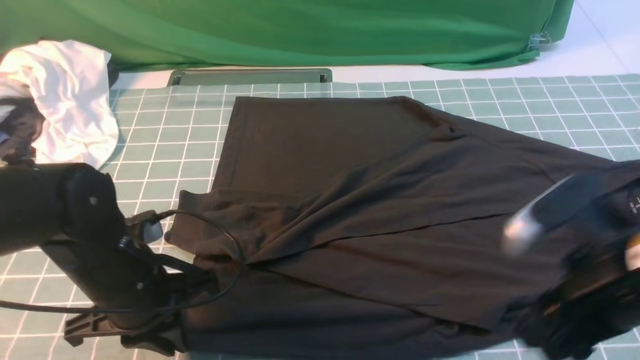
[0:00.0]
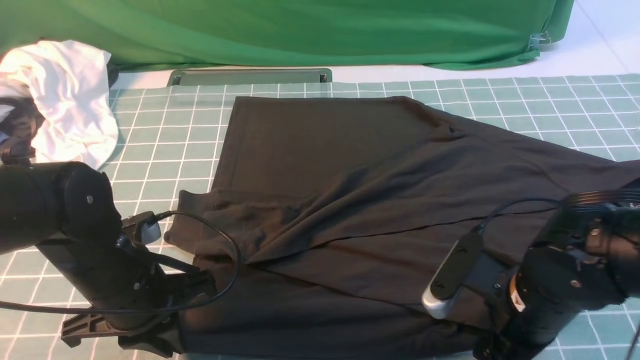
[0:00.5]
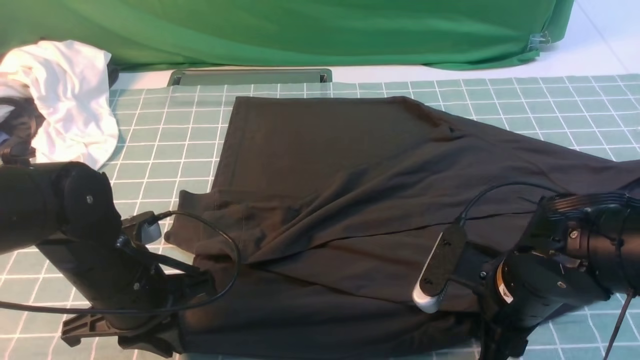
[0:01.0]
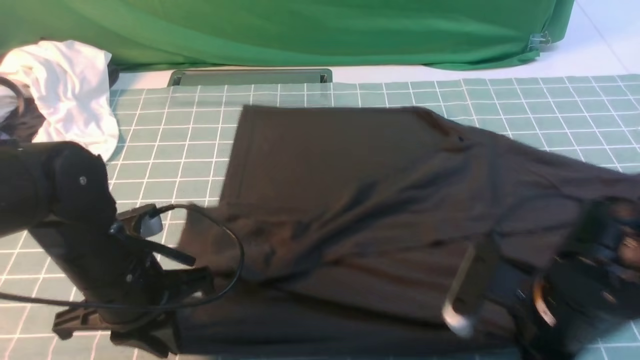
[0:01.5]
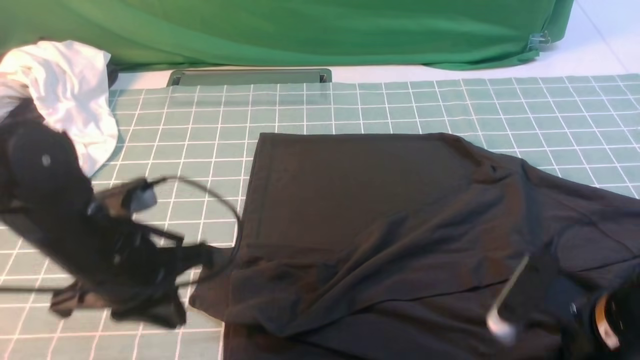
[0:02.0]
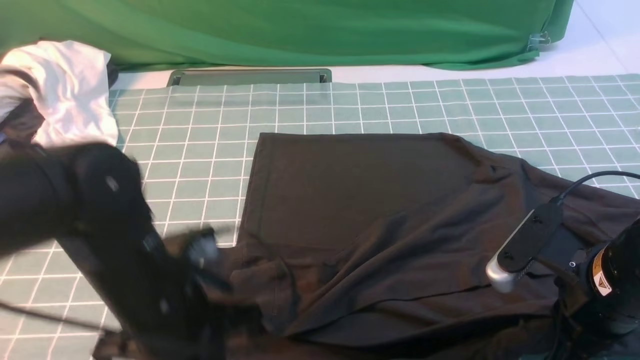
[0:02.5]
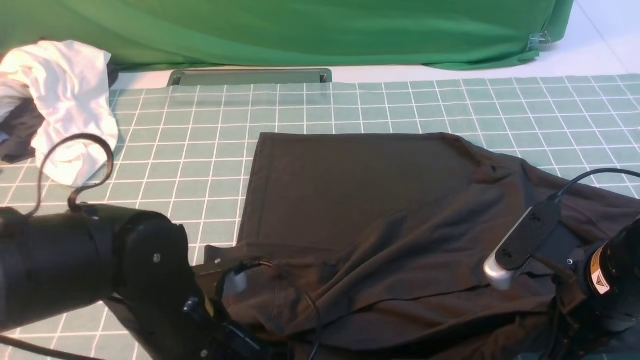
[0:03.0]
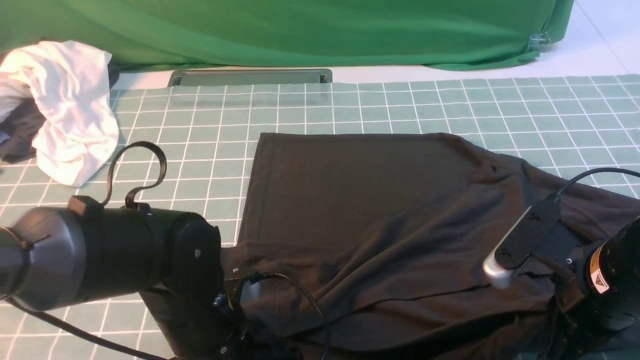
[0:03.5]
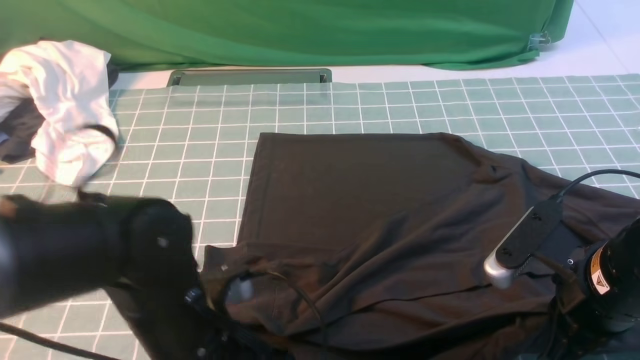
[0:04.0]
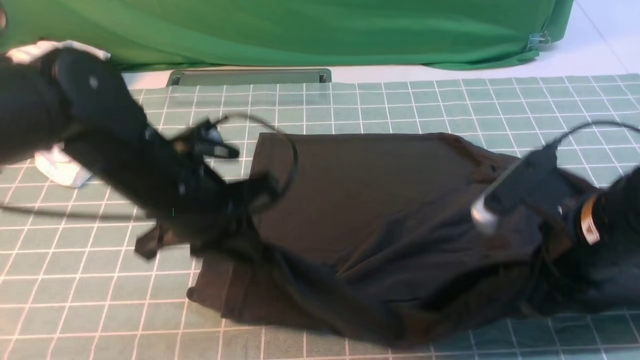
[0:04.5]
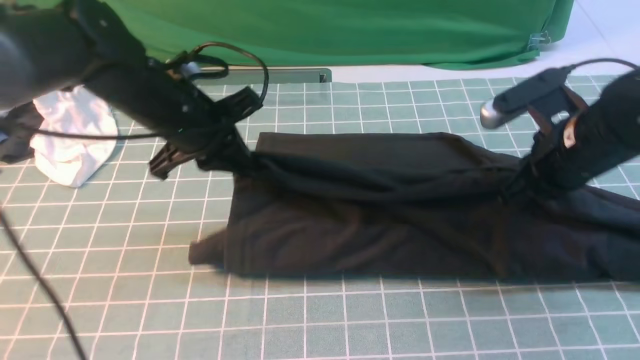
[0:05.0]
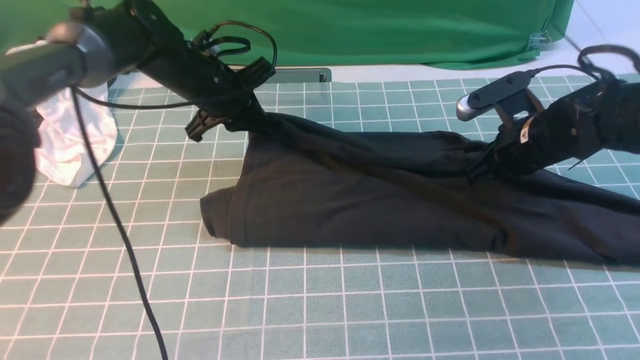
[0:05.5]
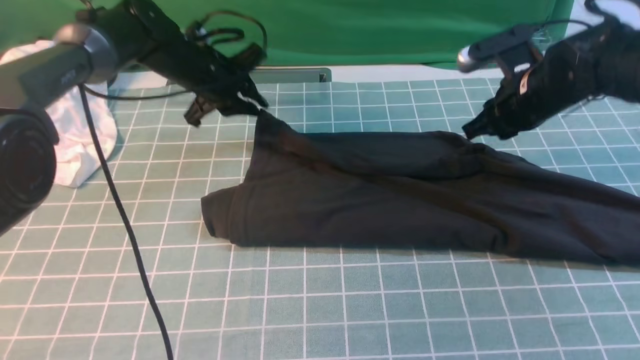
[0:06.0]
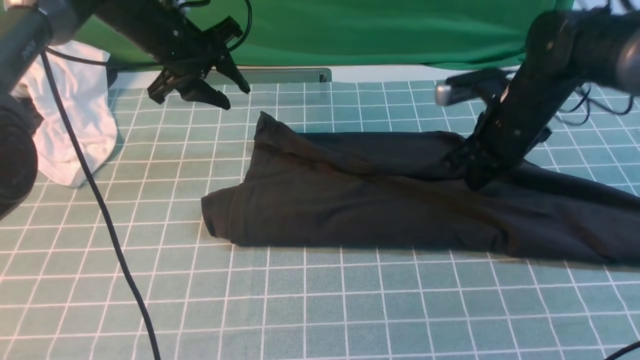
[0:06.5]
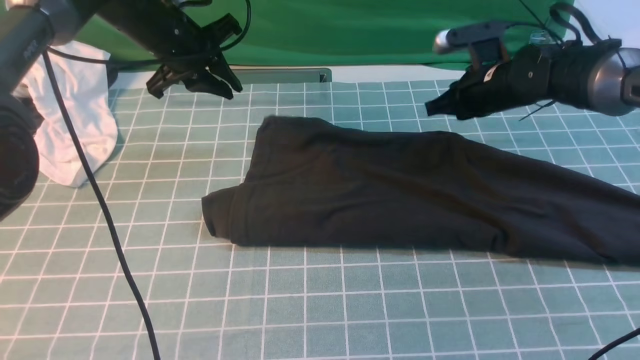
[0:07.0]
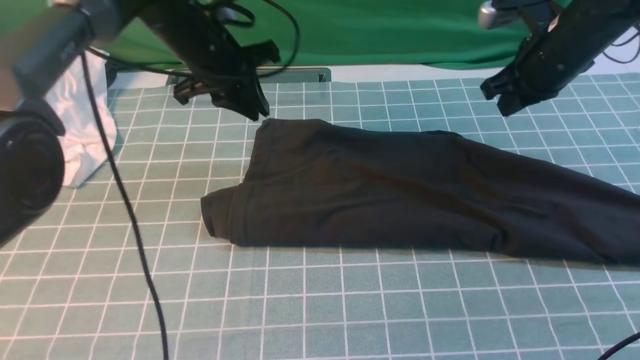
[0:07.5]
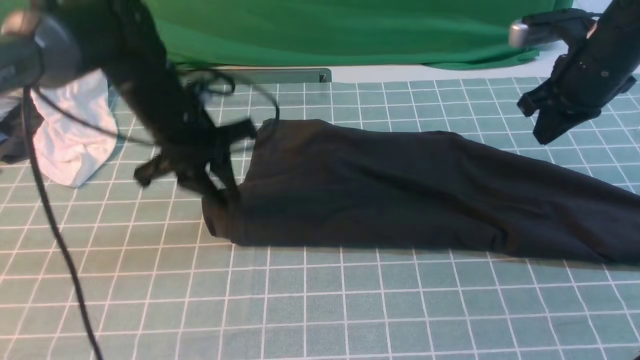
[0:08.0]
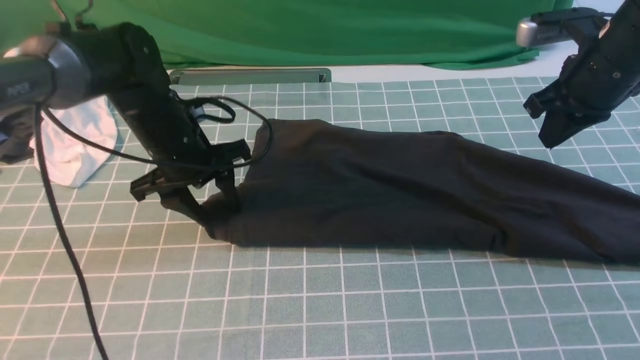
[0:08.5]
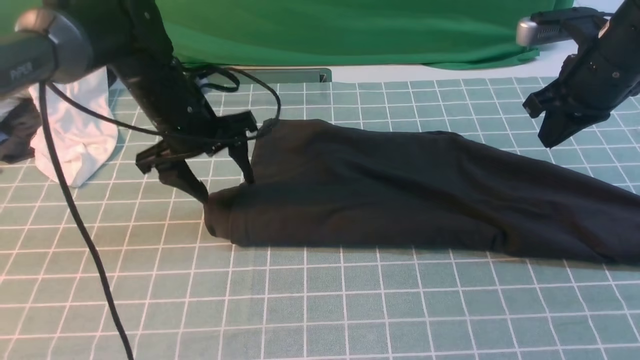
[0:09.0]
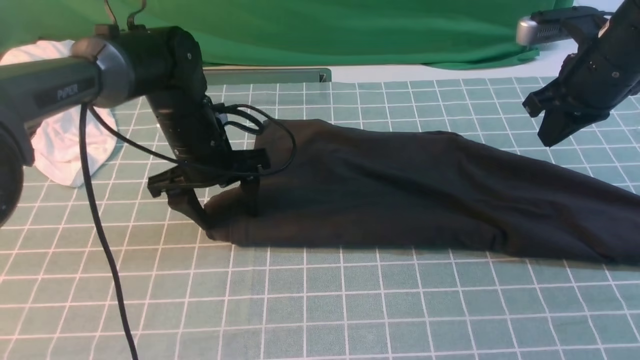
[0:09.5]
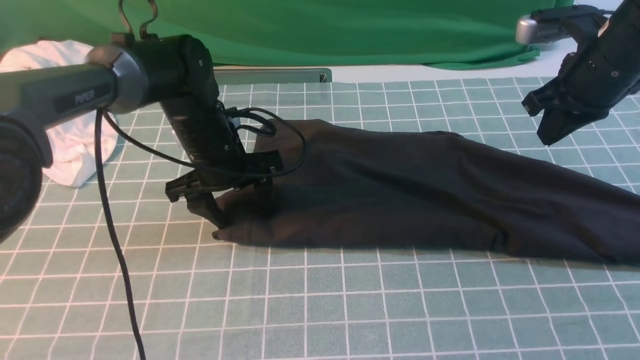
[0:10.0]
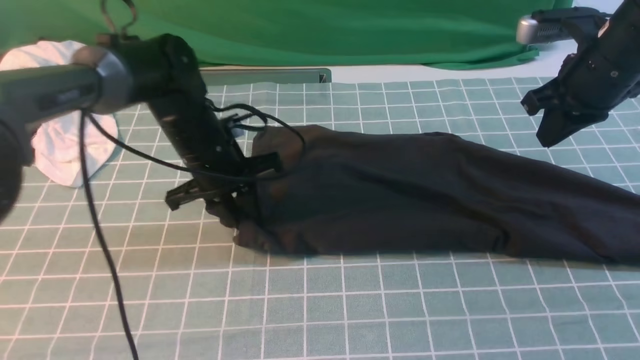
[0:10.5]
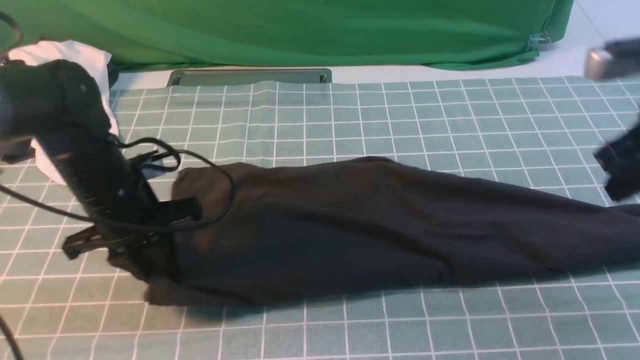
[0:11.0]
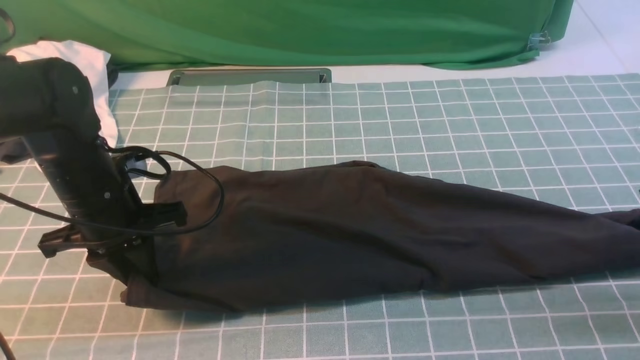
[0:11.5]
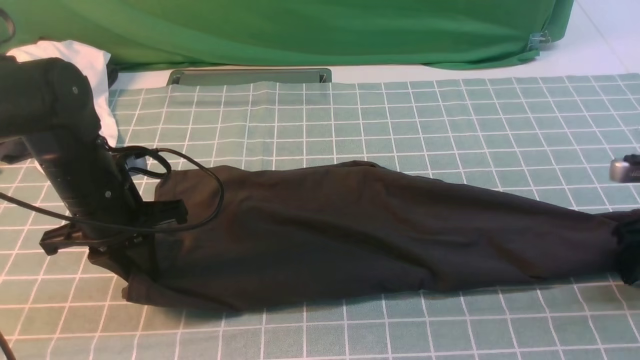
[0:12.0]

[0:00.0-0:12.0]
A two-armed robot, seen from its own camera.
Step, 0:00.0 to 0:04.0: use both arms simultaneously to clamp the lower edge of the clothing fabric.
Step, 0:04.5 to 0:07.0: use both arms to drag the lower edge of the fabric forward and fold it over the upper edge.
0:00.0 to 0:02.0: The right gripper closes up. Meanwhile the left gripper shifts about 5 cm upward.
0:02.0 to 0:04.0: The left gripper is displaced to the right by approximately 5 cm, and opens and closes again.
0:04.0 to 0:06.0: Both grippers move forward, about 30 cm.
0:06.0 to 0:08.0: The left gripper heads backward, covering roughly 10 cm. The right gripper heads upward, covering roughly 5 cm.
0:08.0 to 0:10.0: The left gripper travels downward by about 5 cm, and opens.
0:10.0 to 0:12.0: The left gripper travels to the left and backward by some 15 cm, and closes its fingers; the right gripper goes some 20 cm downward, to the right and backward, and opens its fingers.

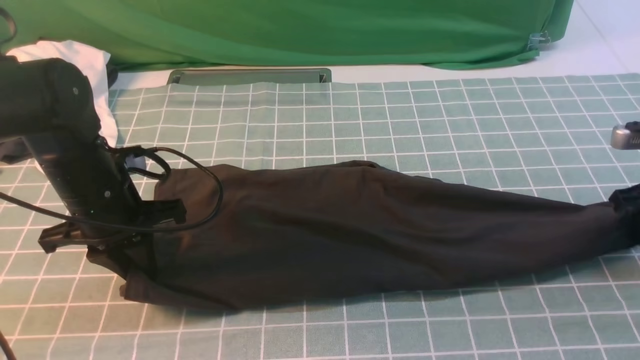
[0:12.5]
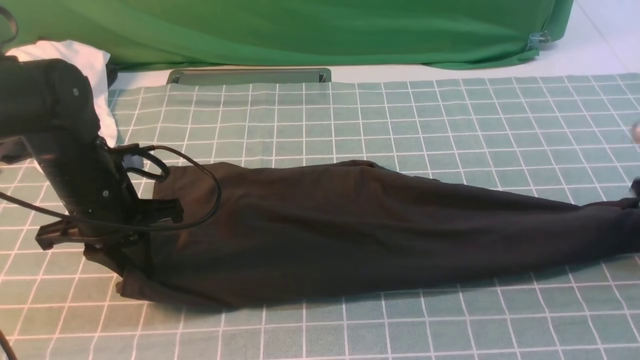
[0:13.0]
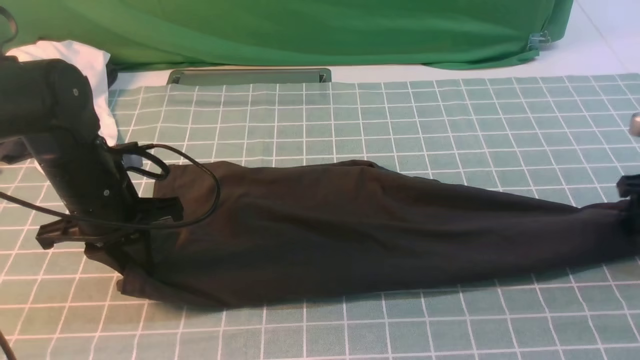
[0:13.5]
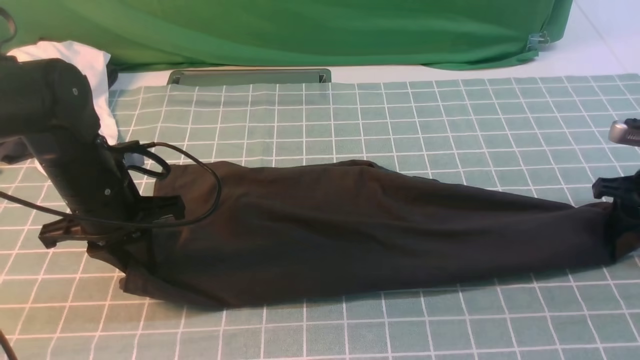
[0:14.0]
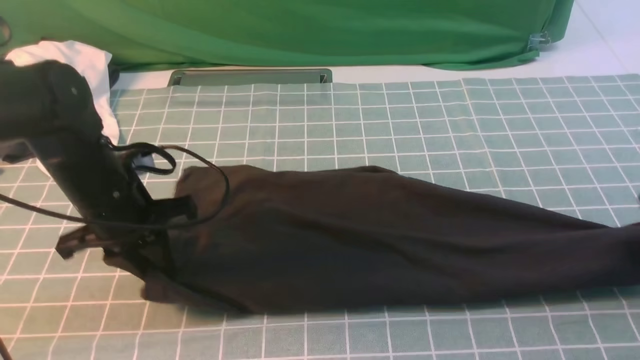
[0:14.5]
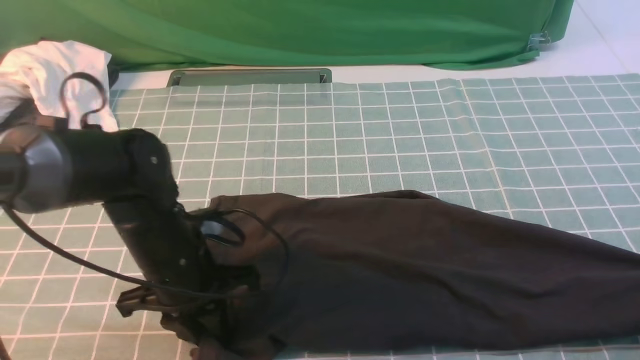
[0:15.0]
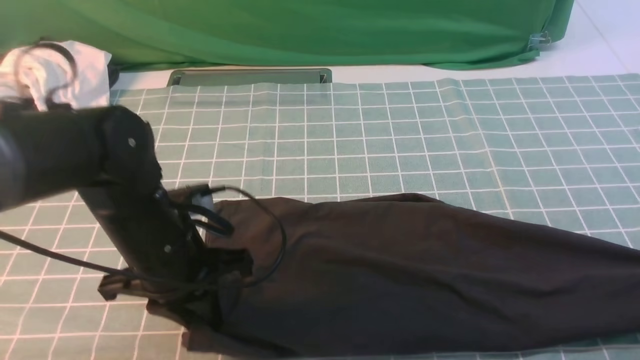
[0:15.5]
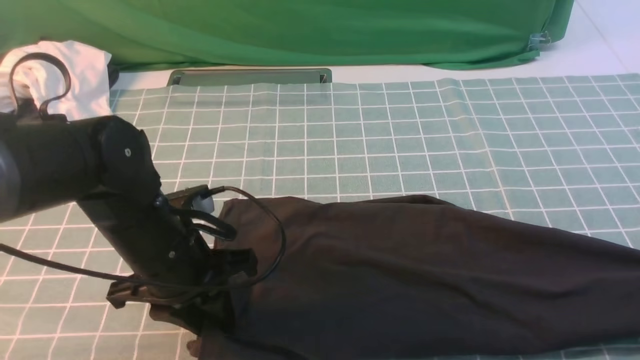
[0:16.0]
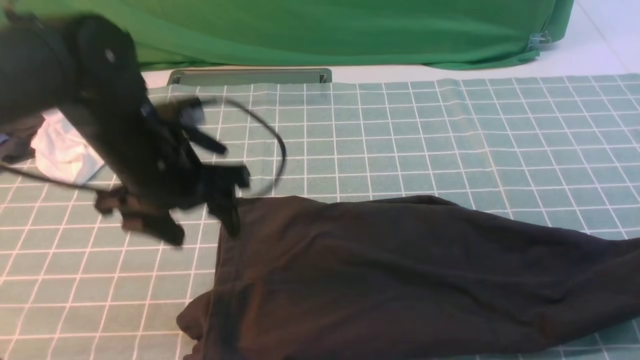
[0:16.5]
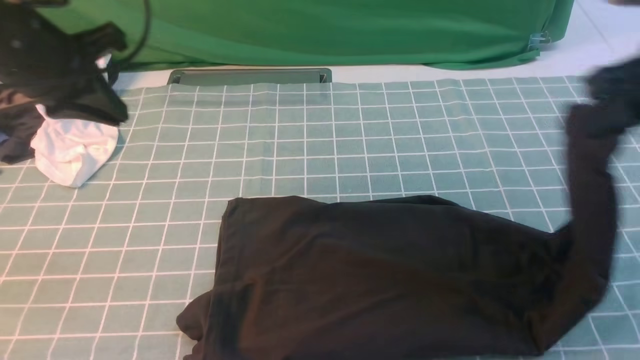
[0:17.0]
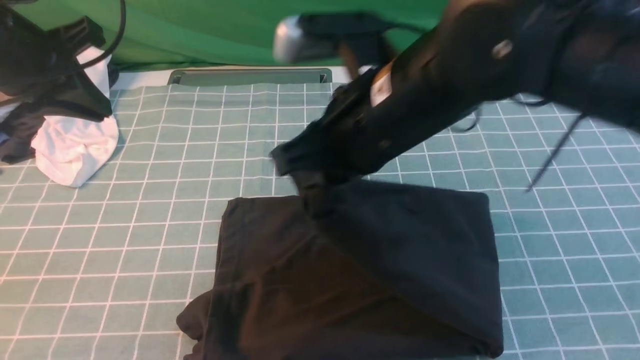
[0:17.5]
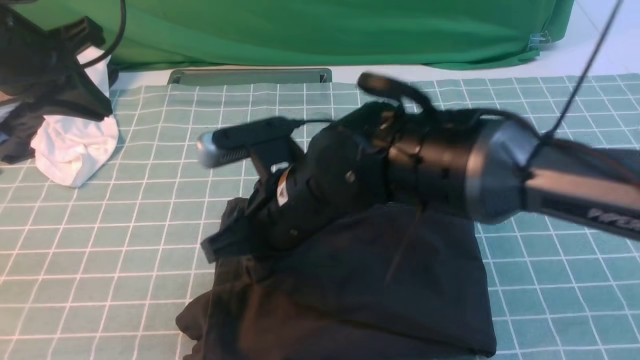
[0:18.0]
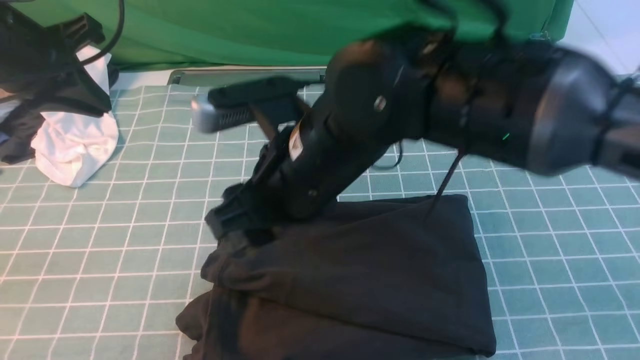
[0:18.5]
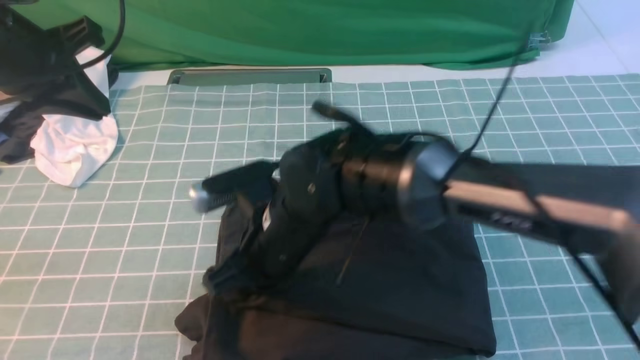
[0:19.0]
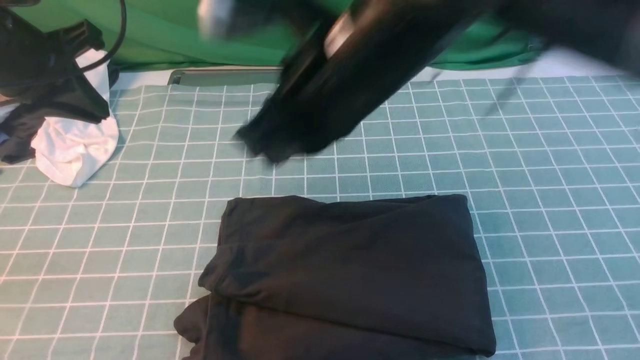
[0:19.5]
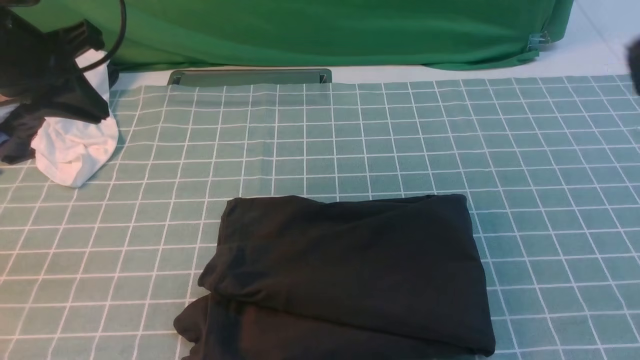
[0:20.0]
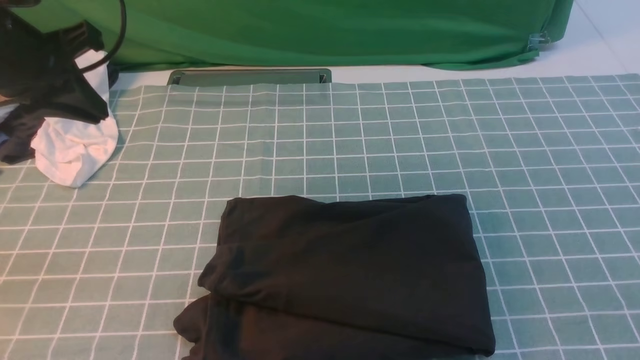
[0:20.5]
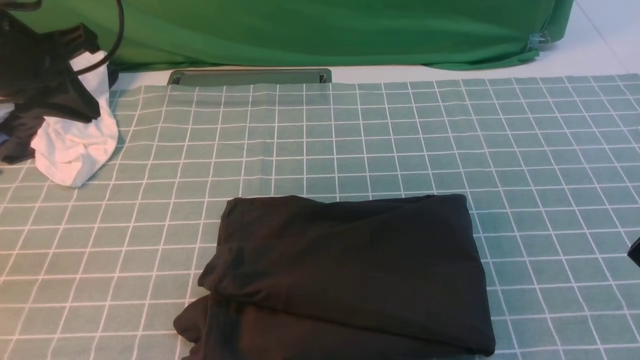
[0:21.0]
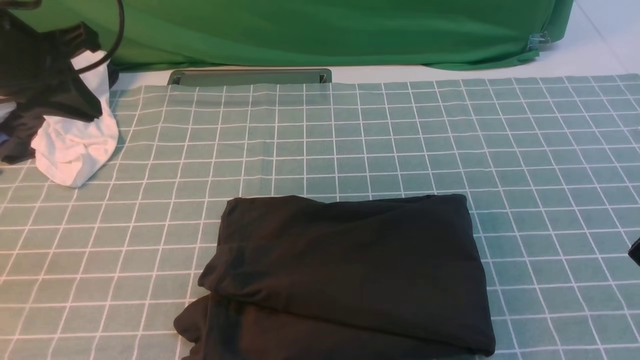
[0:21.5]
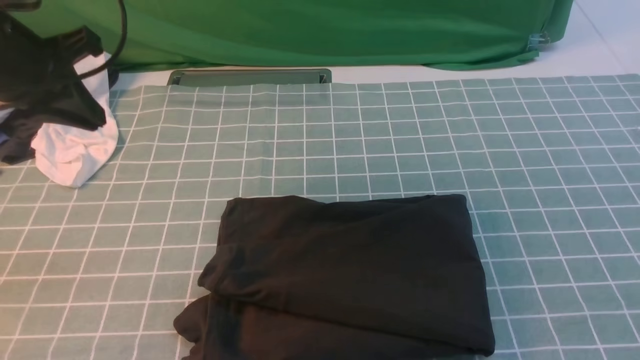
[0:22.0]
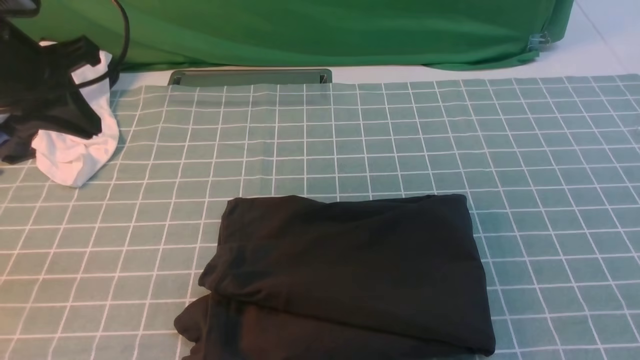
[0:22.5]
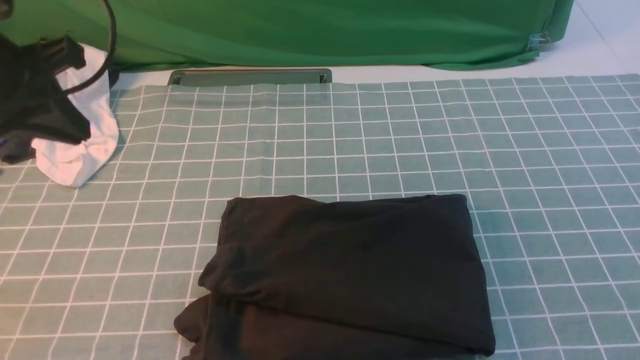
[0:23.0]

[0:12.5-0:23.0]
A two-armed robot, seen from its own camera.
Step, 0:12.5 to 0:16.5: use the right arm to clamp the right edge of the fabric.
Step, 0:17.0 to 0:19.0: use the right arm to drag the right edge of the fabric to the left and folds it over the left edge.
0:12.5 to 0:14.5: The right gripper opens and closes again.
0:14.5 to 0:16.5: Both grippers travel together upward, about 10 cm. The left gripper opens its fingers.
0:16.5 to 0:19.0: The left gripper shifts about 15 cm to the left and upward, and closes. The right gripper goes some 50 cm to the left, and opens, then closes again.
0:19.0 to 0:21.0: The right gripper shifts some 40 cm to the right and backward.
0:21.0 to 0:23.0: The left gripper travels backward by roughly 5 cm.
